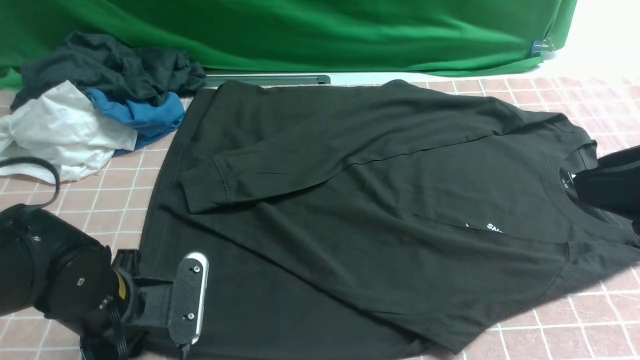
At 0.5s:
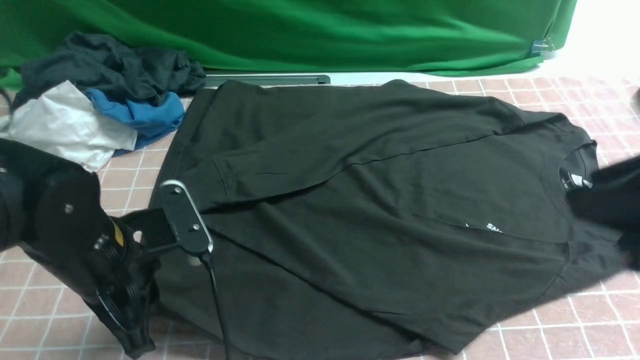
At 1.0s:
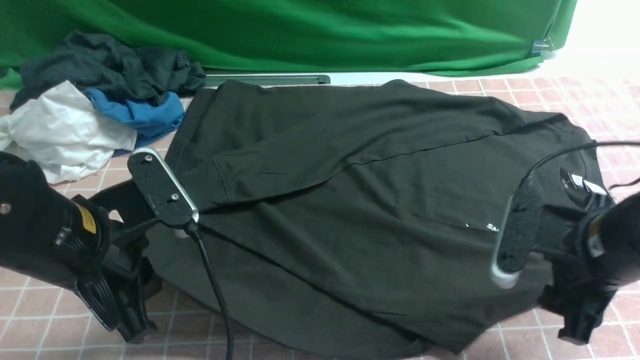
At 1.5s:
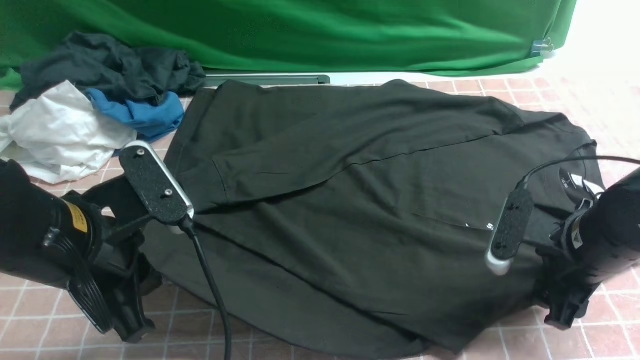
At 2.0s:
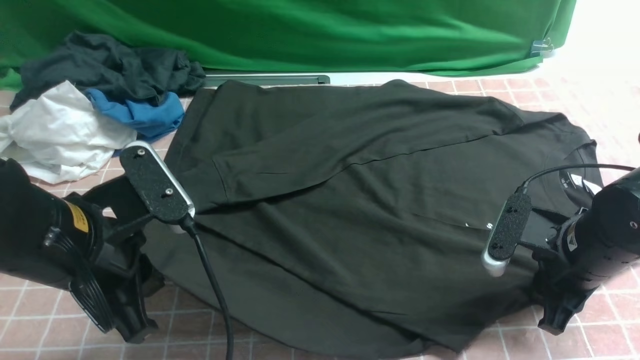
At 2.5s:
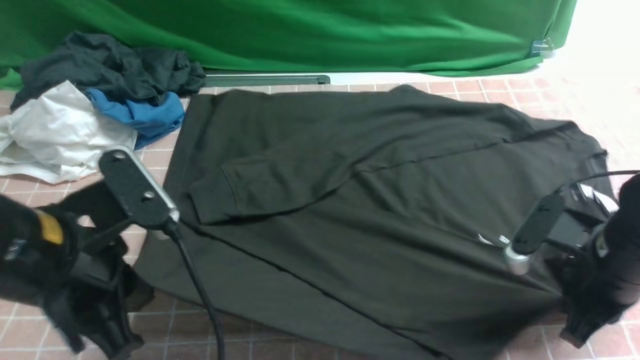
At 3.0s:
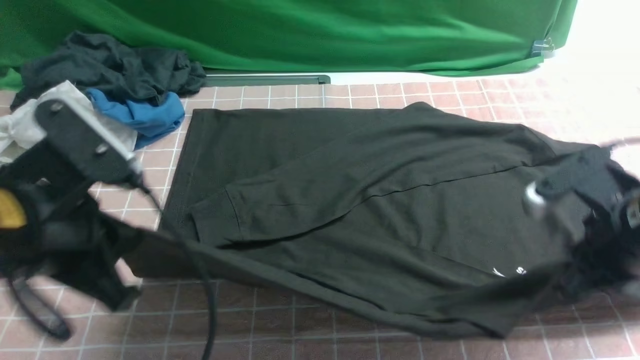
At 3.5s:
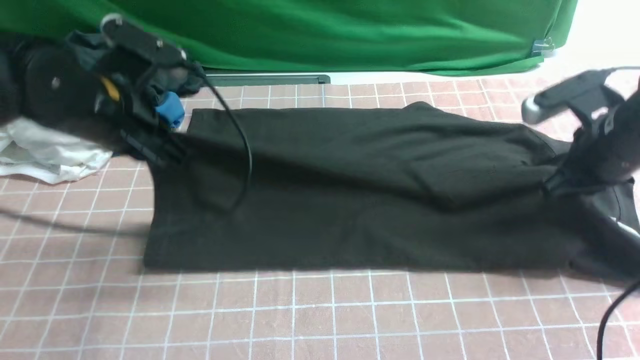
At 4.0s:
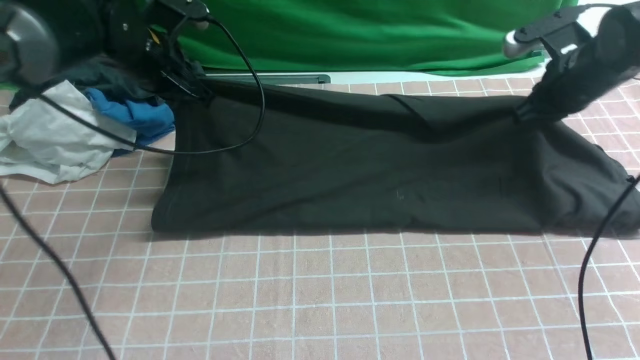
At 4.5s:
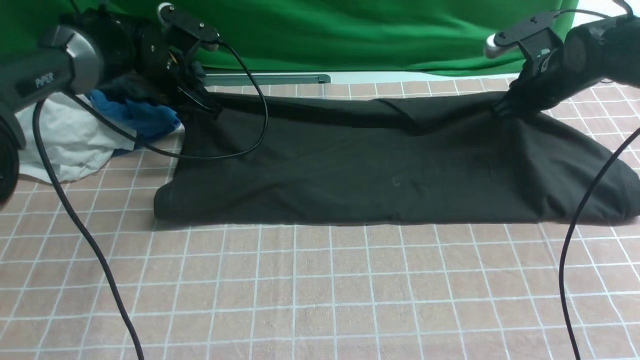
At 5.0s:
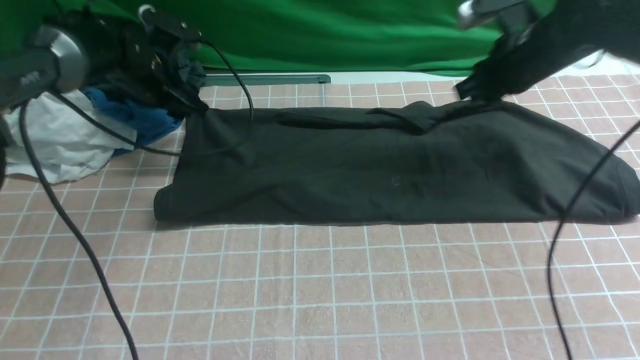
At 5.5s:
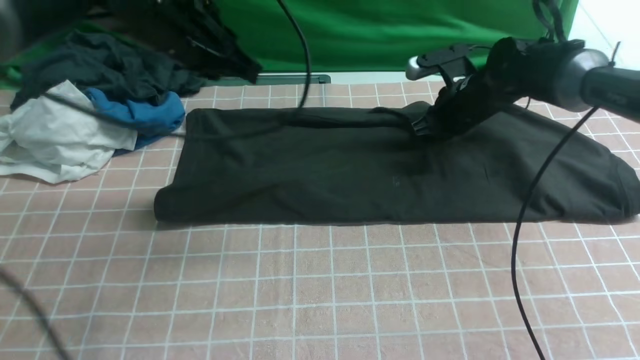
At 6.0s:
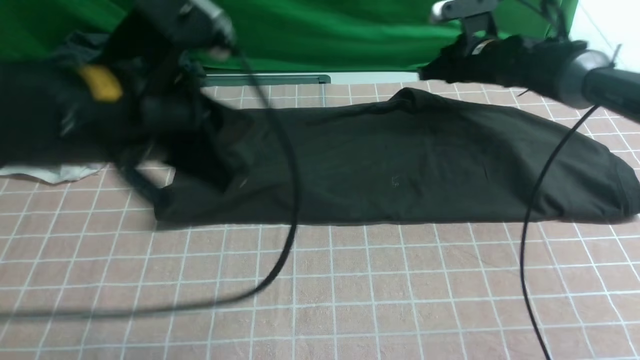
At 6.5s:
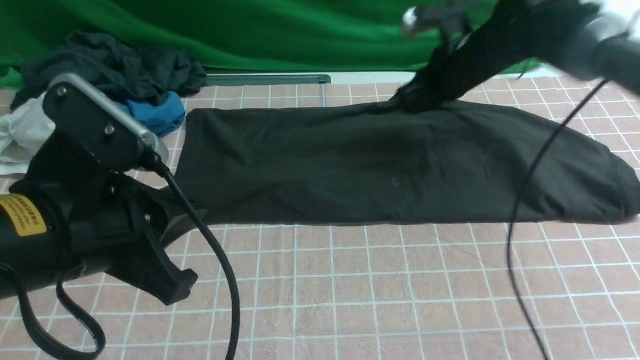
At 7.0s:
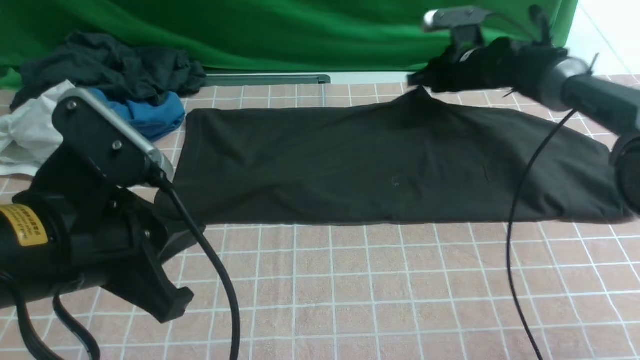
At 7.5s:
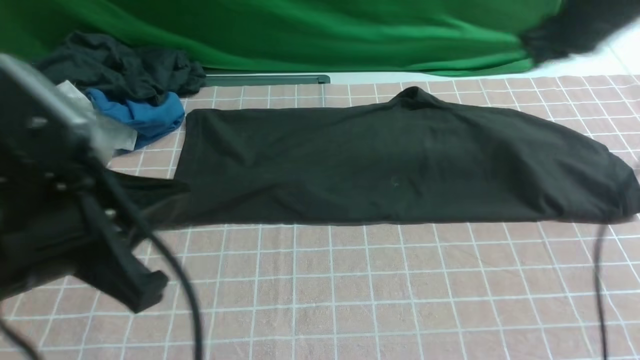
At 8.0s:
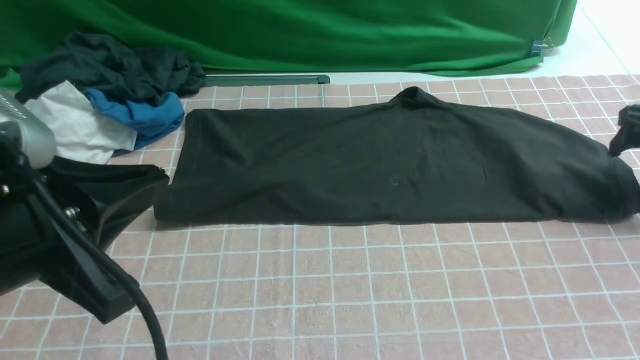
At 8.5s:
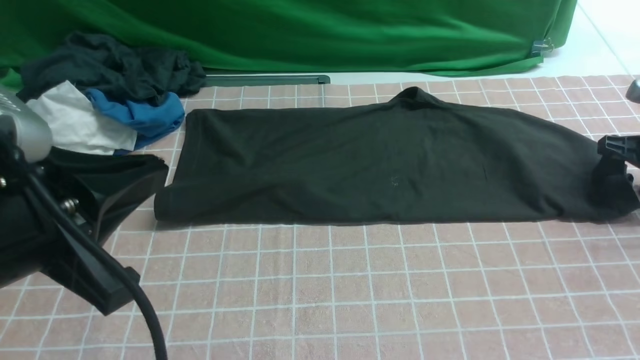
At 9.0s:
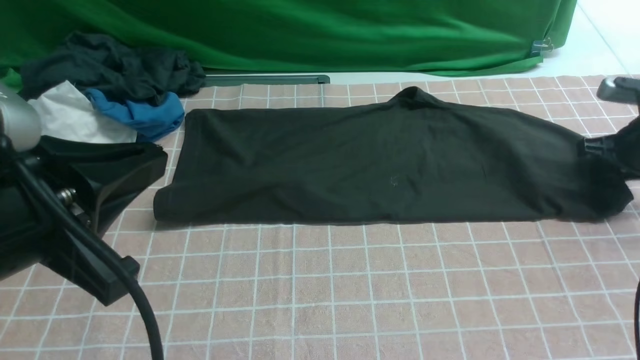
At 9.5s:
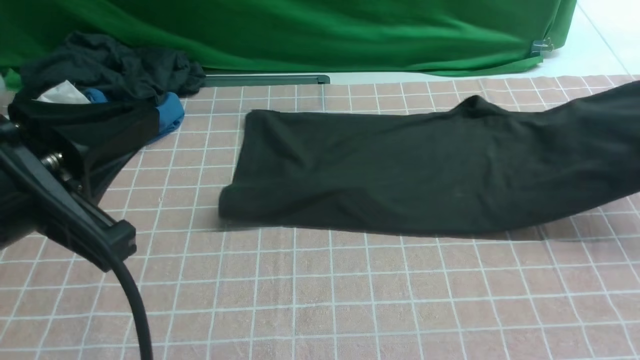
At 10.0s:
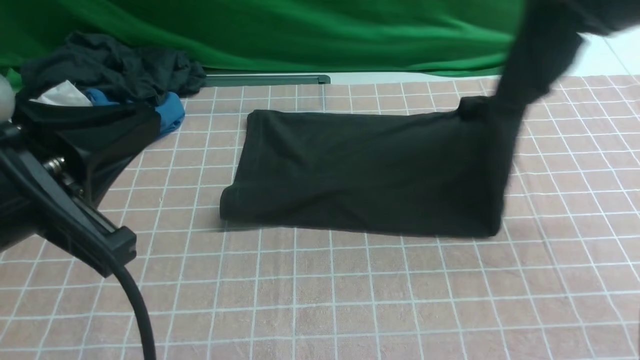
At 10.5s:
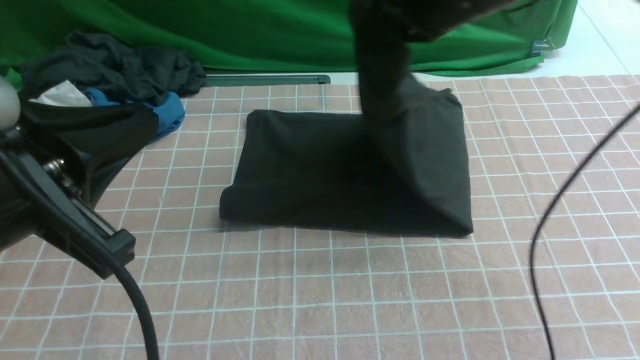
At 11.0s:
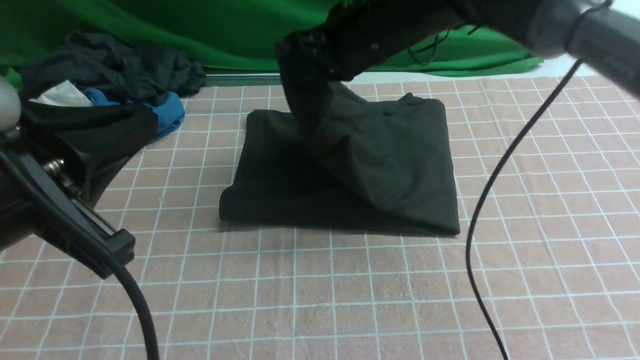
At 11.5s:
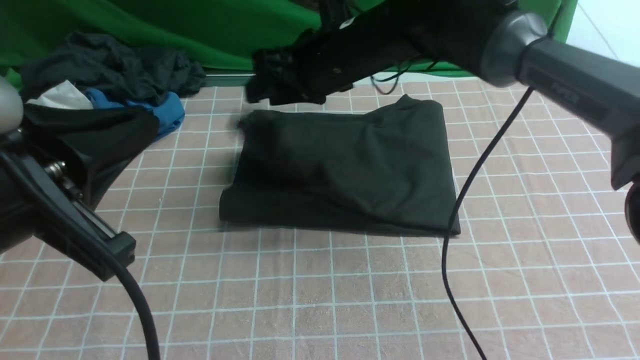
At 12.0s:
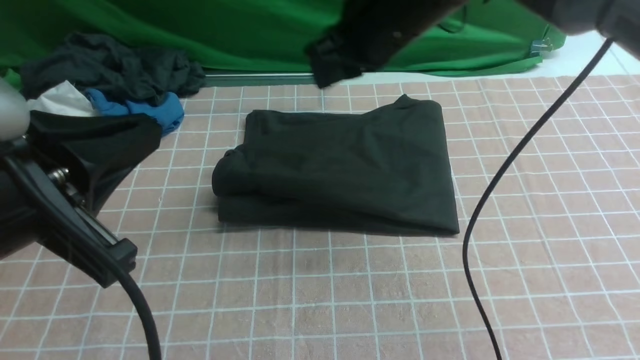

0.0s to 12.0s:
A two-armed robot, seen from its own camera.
Step, 0.0s to 2.5s: use both arms simultaneously to clamp the lower edge of the clothing fabric.
Step, 3.0s to 4.5s: use both arms to drag the lower edge of the fabric forward and fold it over the upper edge.
Step, 5.0s to 9.0s: use the right arm to clamp the right edge of the fabric.
Step, 9.5s to 11.5s: use the right arm to drag the right edge of the fabric to the left and folds it over the left edge.
0.0s to 2.0s: The right gripper heads downward and forward, covering roughly 25 cm, and opens and closes again, while the left gripper moves upward, some 10 cm.
2.0s to 4.0s: Both grippers travel together forward, roughly 20 cm. The right gripper closes.
4.0s to 6.0s: The left gripper is displaced backward and upward by roughly 25 cm, and opens, then closes again. The right gripper shifts approximately 10 cm forward and to the left.
6.0s to 8.0s: The left gripper heads backward, covering about 10 cm, while the right gripper is displaced to the right and backward by roughly 25 cm, and opens up.
8.0s to 10.0s: The right gripper goes roughly 20 cm upward and to the left, and closes its fingers.
10.0s to 12.0s: The right gripper goes roughly 20 cm to the left, and opens, then closes once more.

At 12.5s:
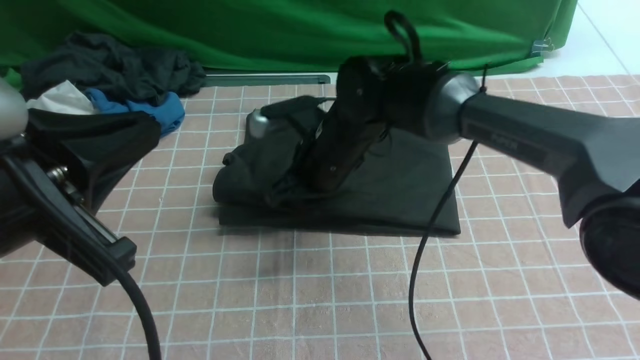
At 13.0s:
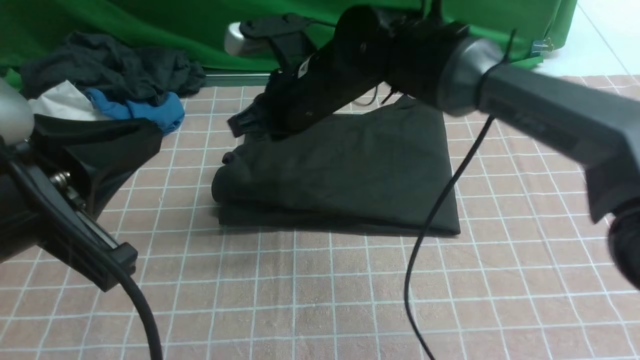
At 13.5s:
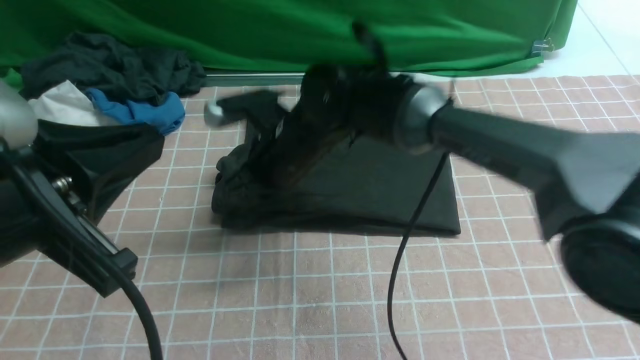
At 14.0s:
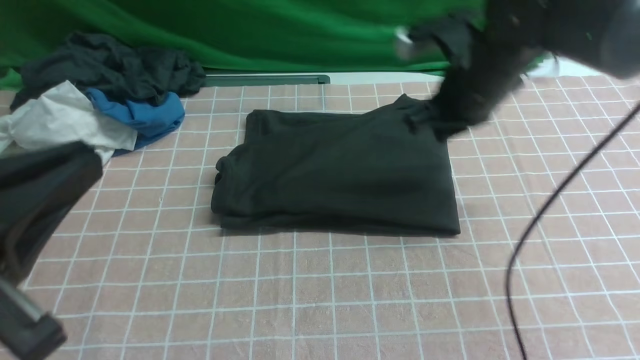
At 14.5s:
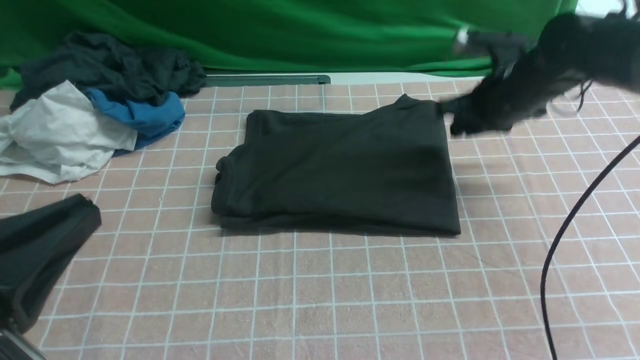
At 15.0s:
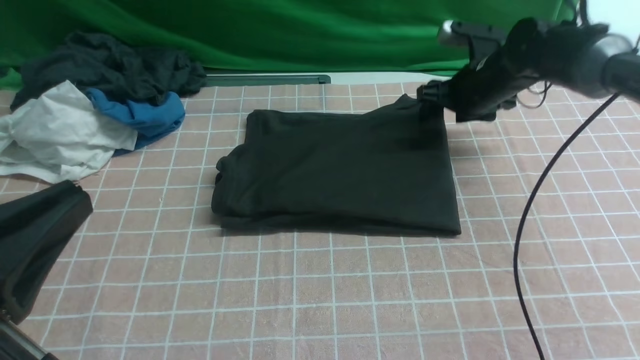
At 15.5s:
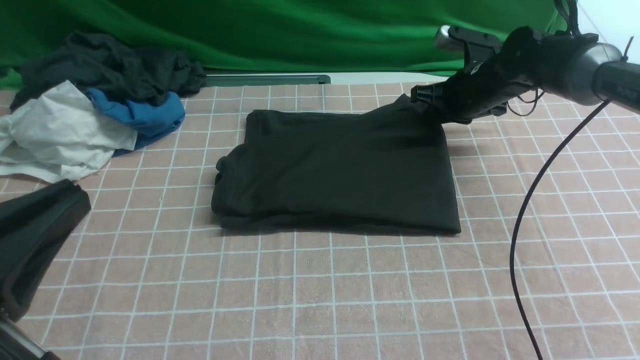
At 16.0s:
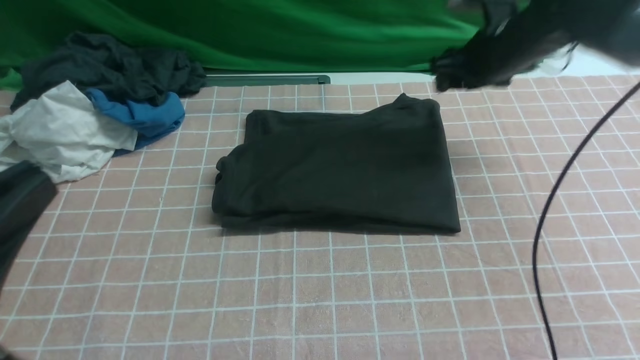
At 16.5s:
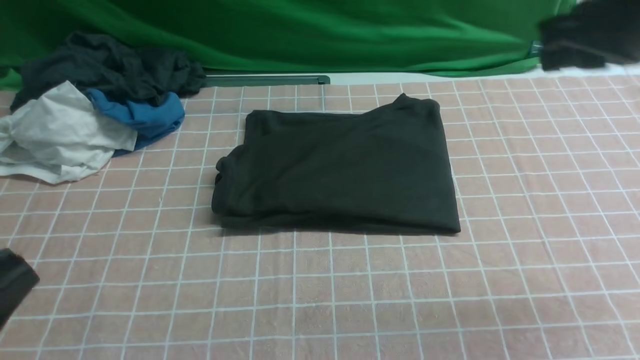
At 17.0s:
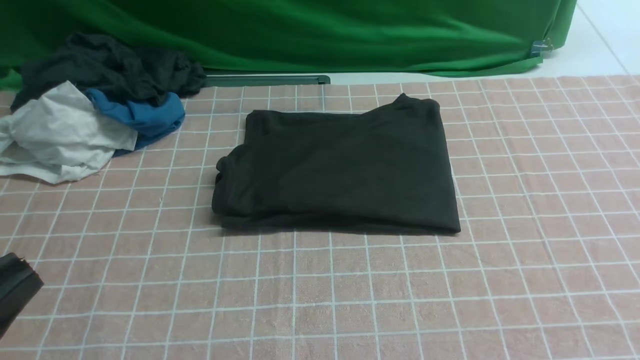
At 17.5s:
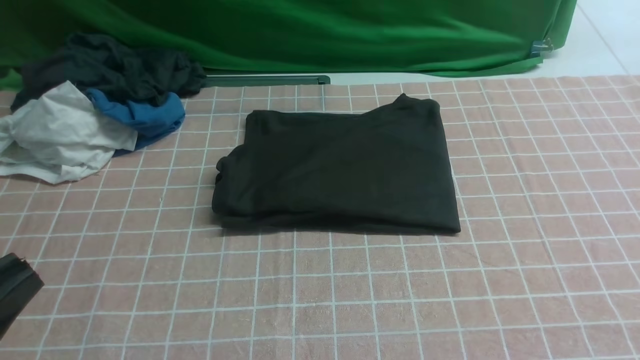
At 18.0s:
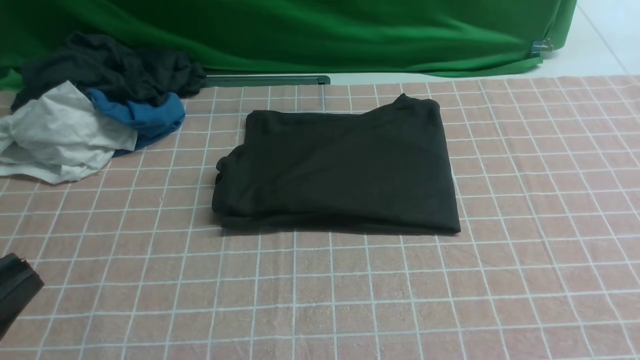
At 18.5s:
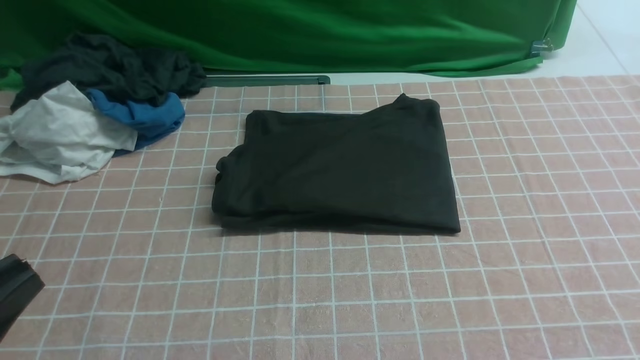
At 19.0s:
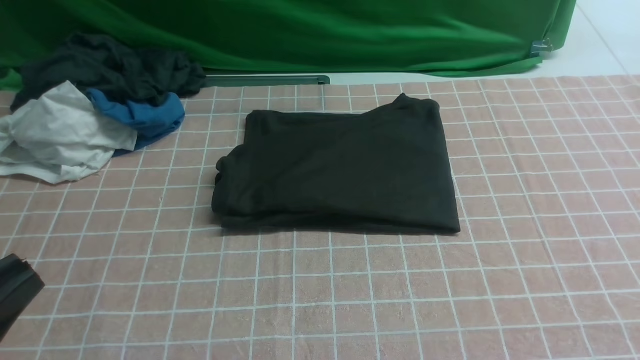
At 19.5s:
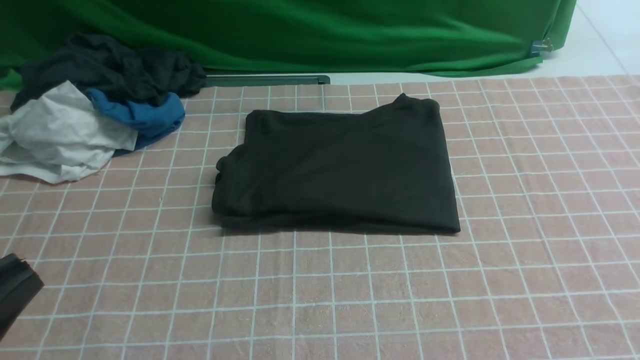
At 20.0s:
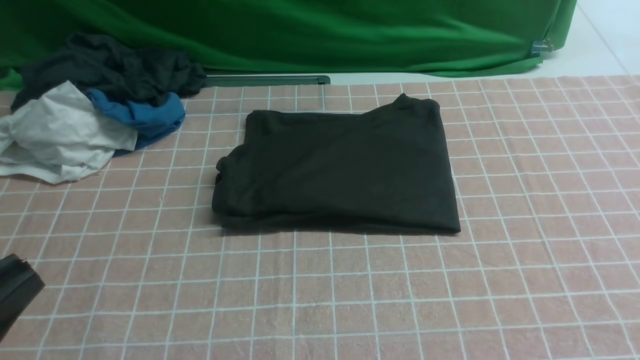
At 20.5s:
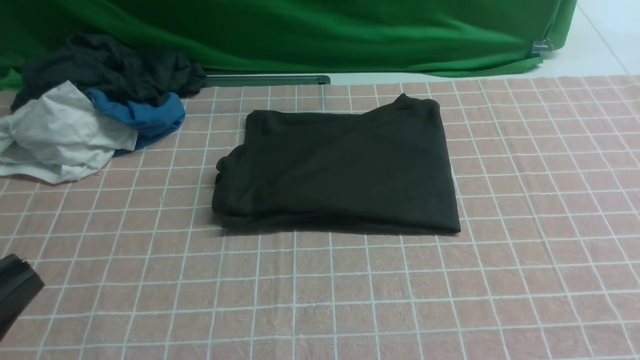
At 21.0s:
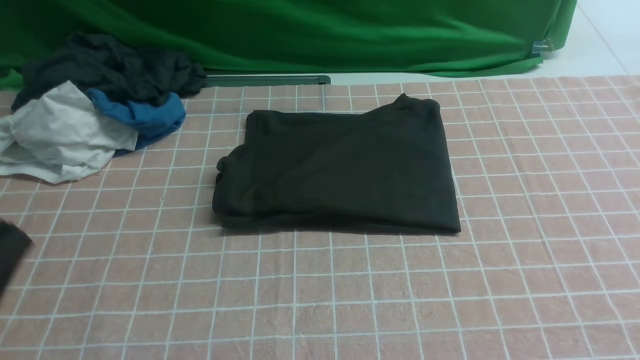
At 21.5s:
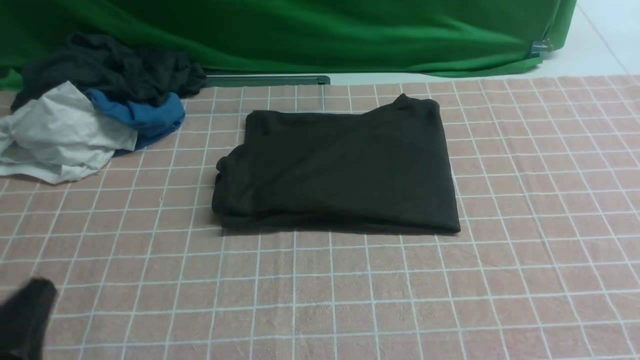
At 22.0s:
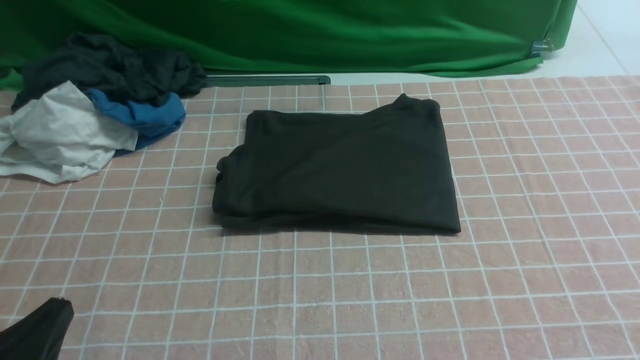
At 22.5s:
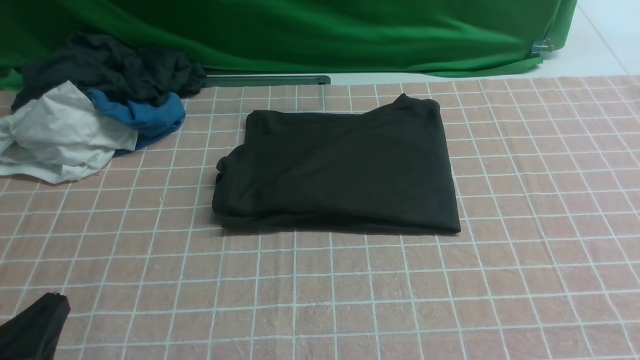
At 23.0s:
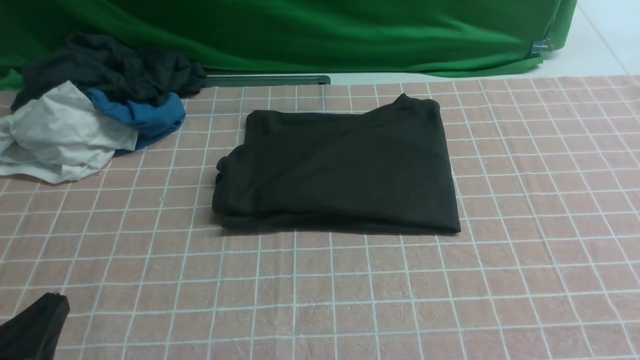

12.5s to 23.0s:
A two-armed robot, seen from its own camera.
12.5s to 14.5s: The left gripper heads backward, covering roughly 5 cm. The right gripper heads to the right, covering approximately 20 cm, and opens up.
14.5s to 16.5s: The left gripper moves some 5 cm. Meanwhile the right gripper heads upward and backward, covering roughly 25 cm, and opens, then closes once more.
16.5s to 19.0s: The right gripper shifts approximately 25 cm backward and downward.
19.0s to 21.0s: The grippers move only a little.
21.0s to 23.0s: The left gripper goes about 10 cm downward.
